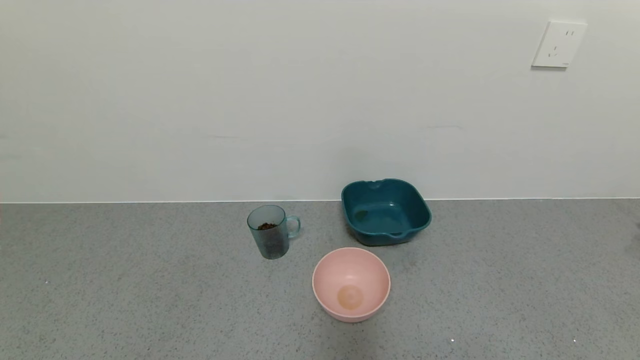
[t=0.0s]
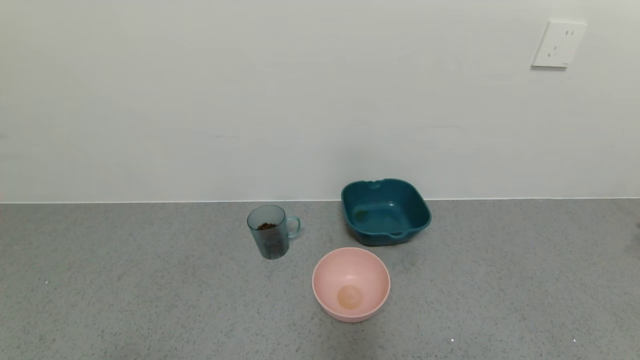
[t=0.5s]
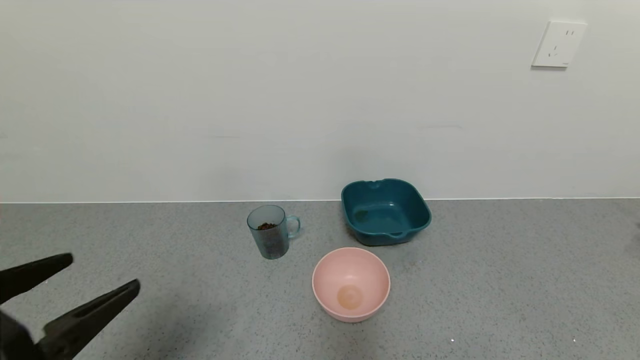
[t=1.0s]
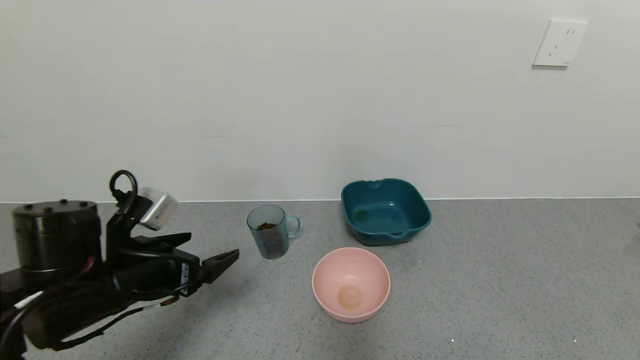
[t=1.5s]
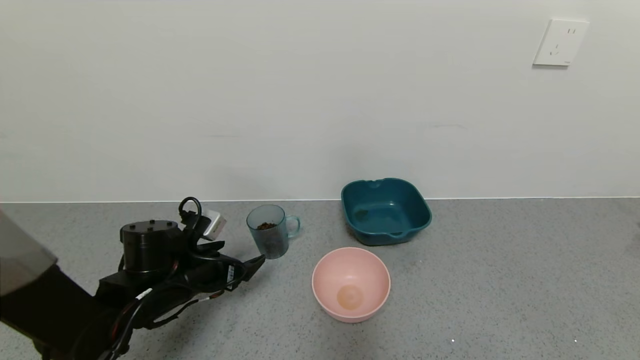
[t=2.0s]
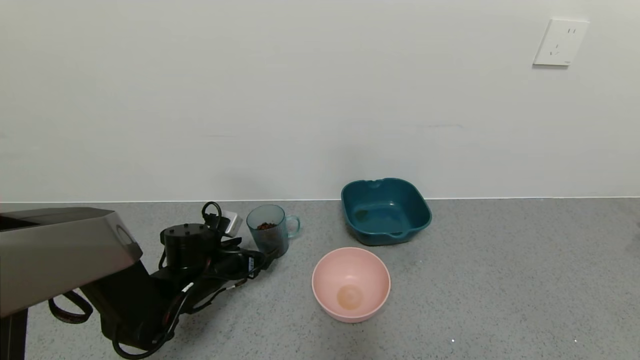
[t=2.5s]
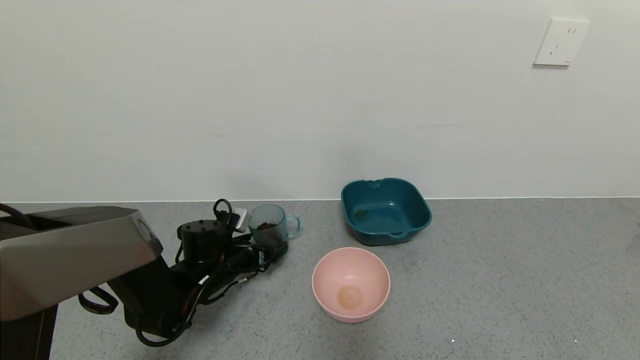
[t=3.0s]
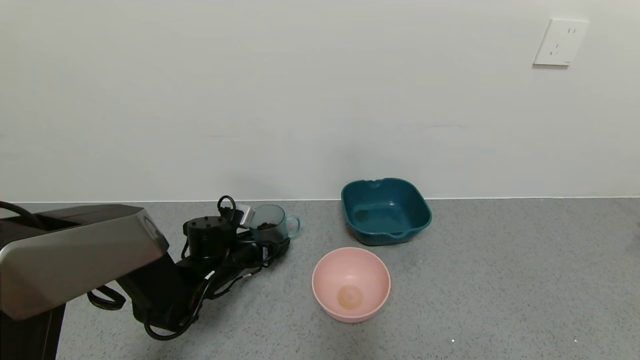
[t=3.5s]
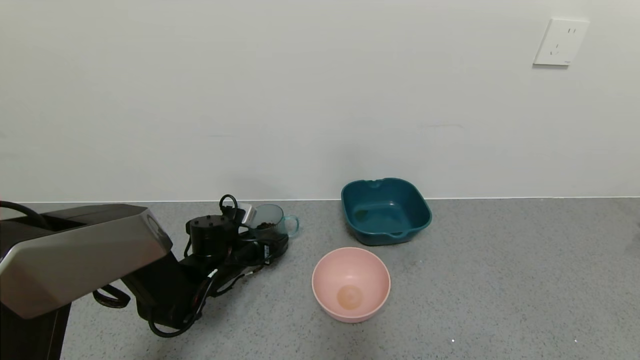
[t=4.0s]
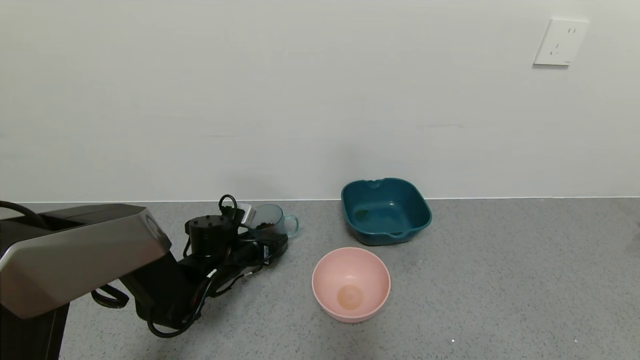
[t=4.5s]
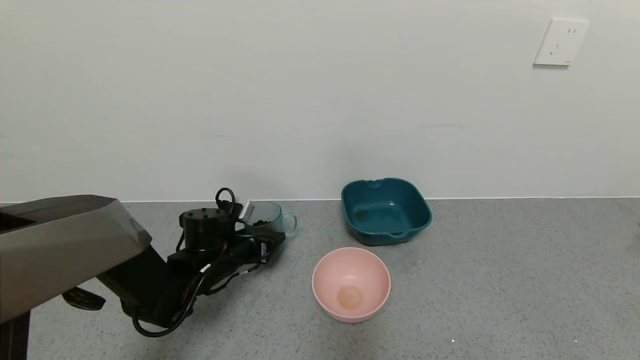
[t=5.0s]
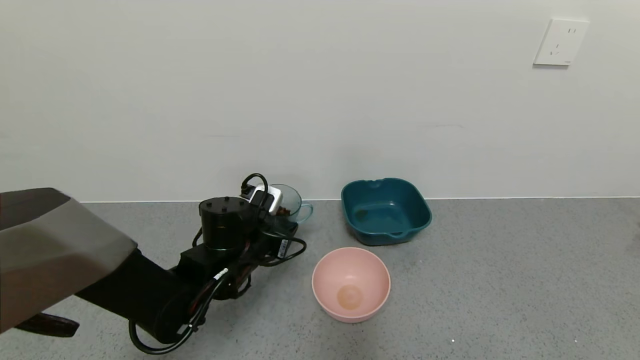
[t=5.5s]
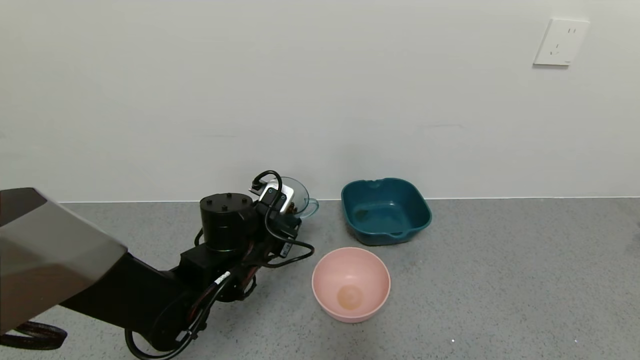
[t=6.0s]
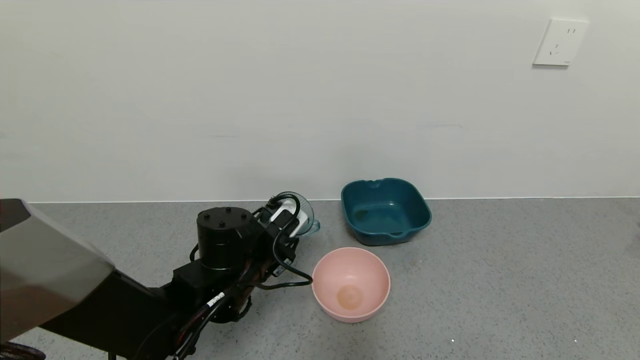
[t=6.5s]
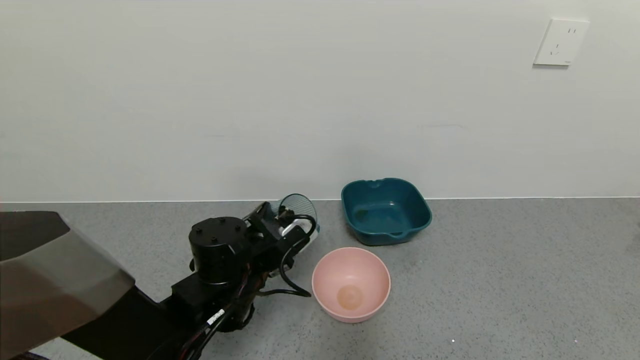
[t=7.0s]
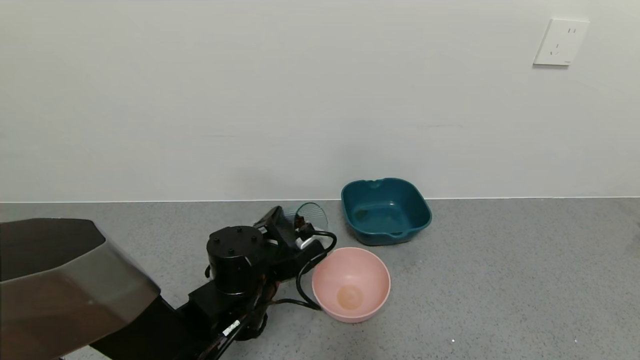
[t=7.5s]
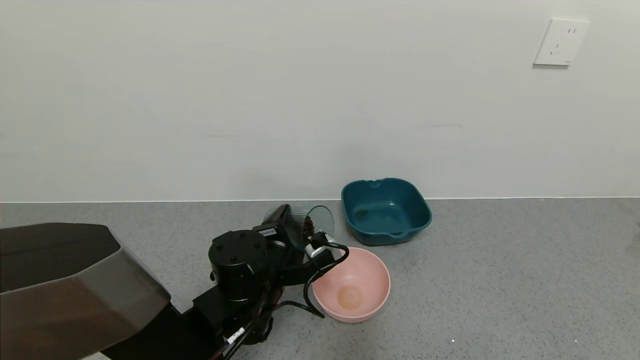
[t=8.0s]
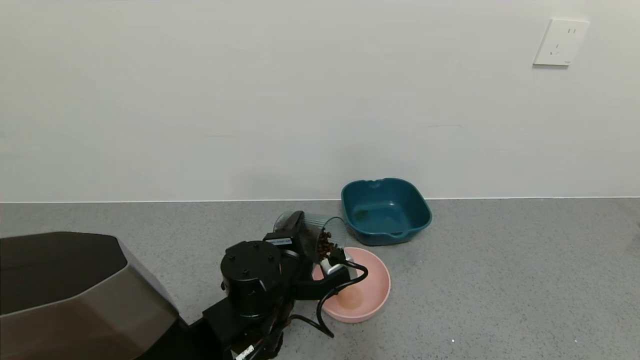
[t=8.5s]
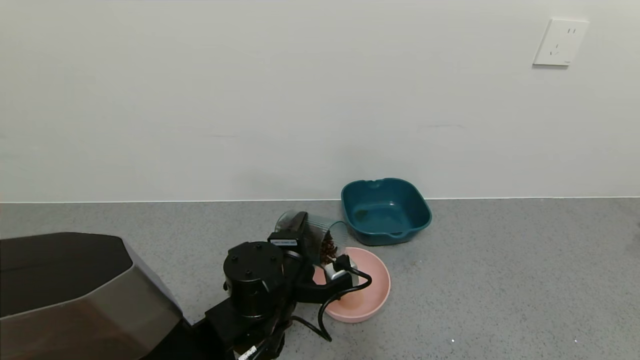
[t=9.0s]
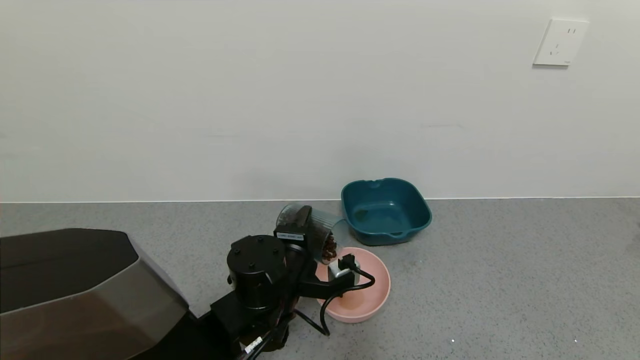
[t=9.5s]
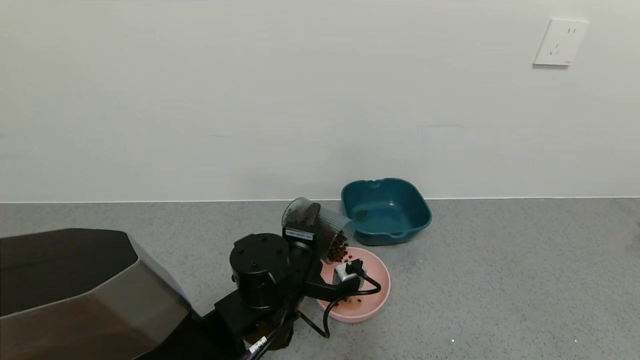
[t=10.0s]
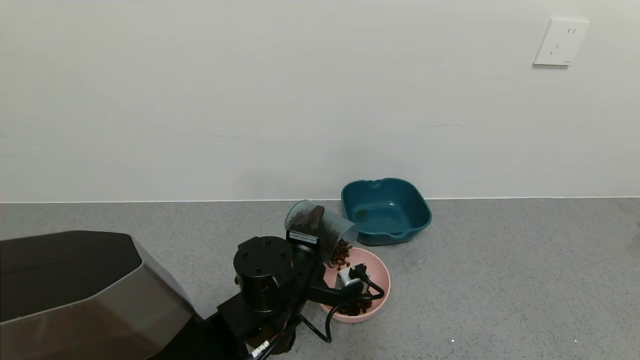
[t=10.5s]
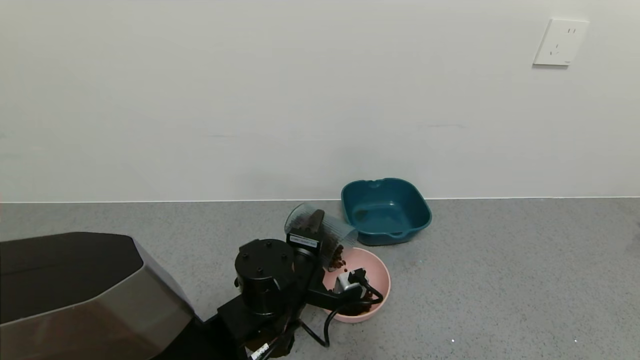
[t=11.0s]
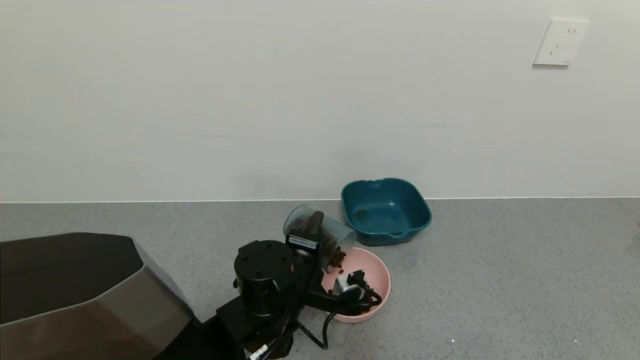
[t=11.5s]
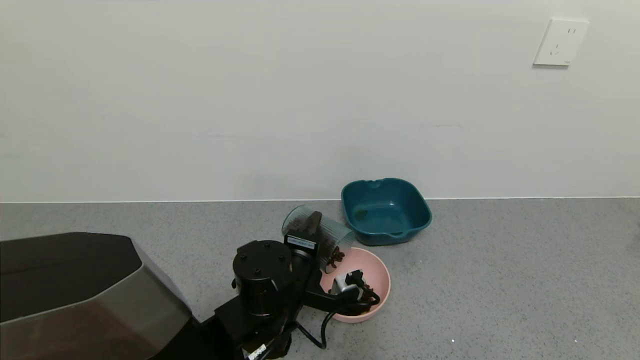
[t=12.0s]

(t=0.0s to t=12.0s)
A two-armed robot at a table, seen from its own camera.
Task of the whole recording: use a gripper to pick up the cup and pour the solid into a bowl or tray.
Step, t=0.0s - t=4.0s: Grasp the glass of coffee beans with the left gripper.
t=0.0s - t=2.0s: The left gripper is displaced forward by roughly 30 cm.
t=2.0s - t=4.0s: The left gripper is displaced forward by some 10 cm, and closes.
t=4.0s - t=6.0s: The left gripper moves upward, to the right and backward, about 15 cm.
t=6.0s - t=8.0s: The left gripper shifts by approximately 5 cm.
t=10.0s - t=12.0s: Both grippers stay put.

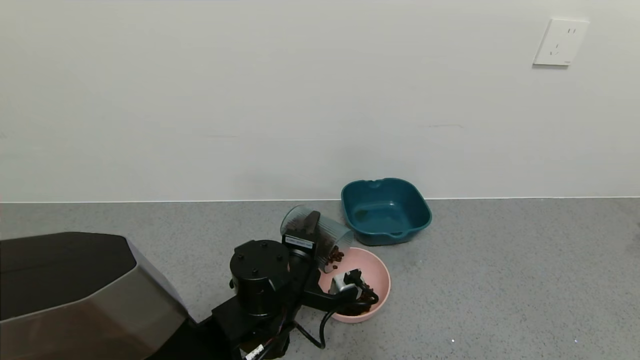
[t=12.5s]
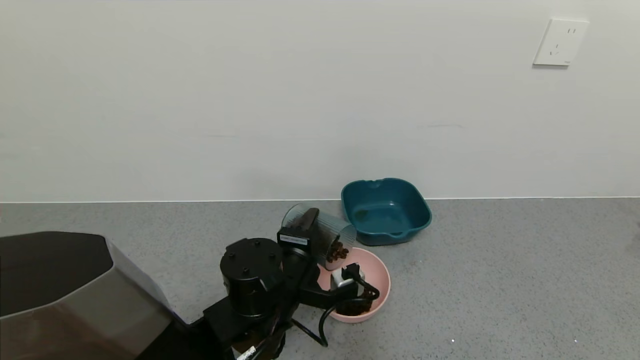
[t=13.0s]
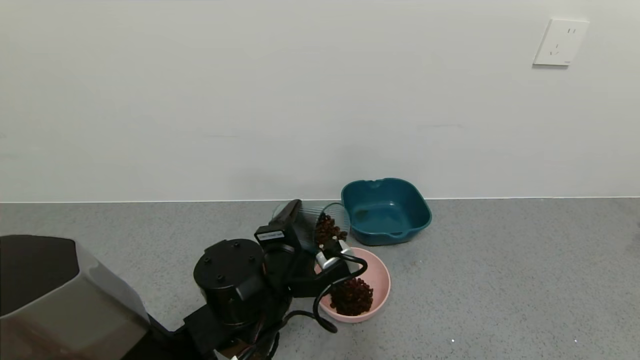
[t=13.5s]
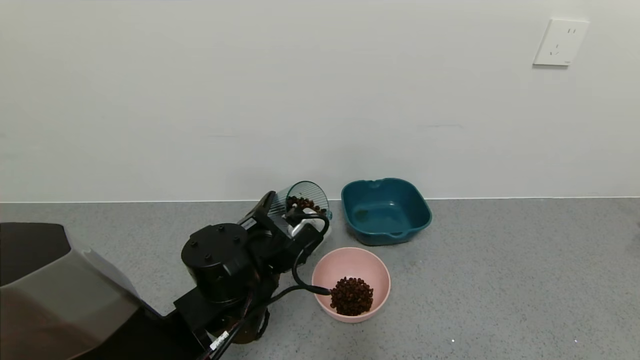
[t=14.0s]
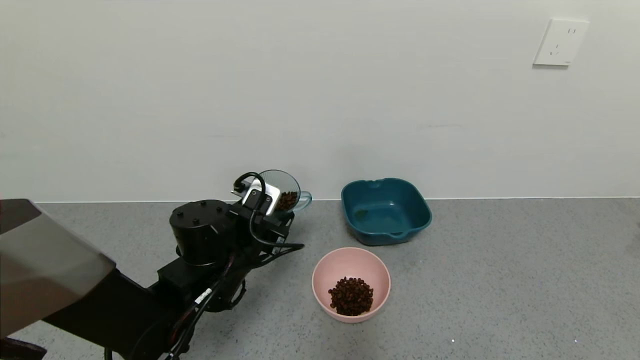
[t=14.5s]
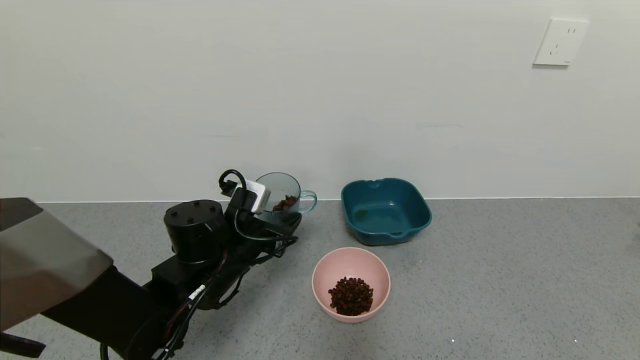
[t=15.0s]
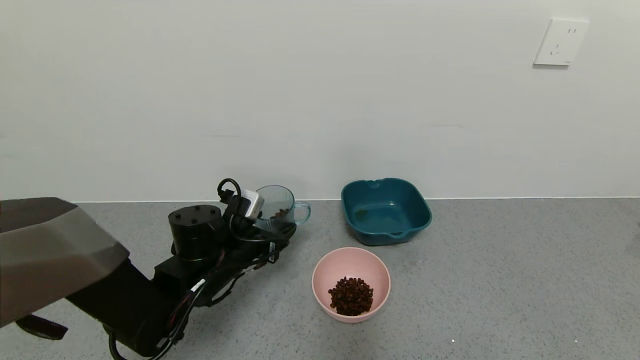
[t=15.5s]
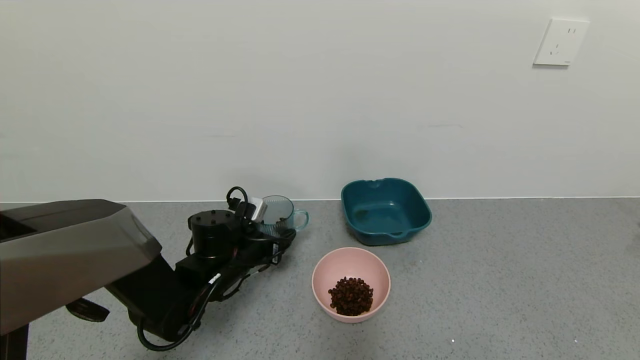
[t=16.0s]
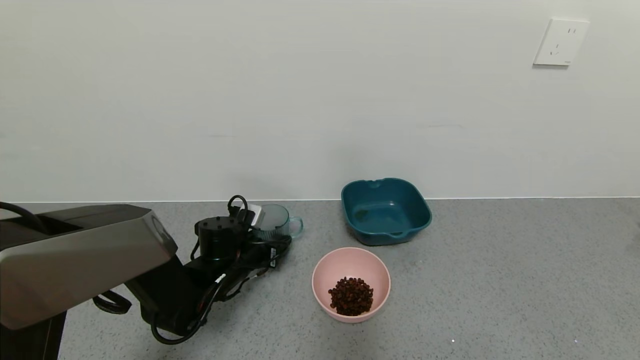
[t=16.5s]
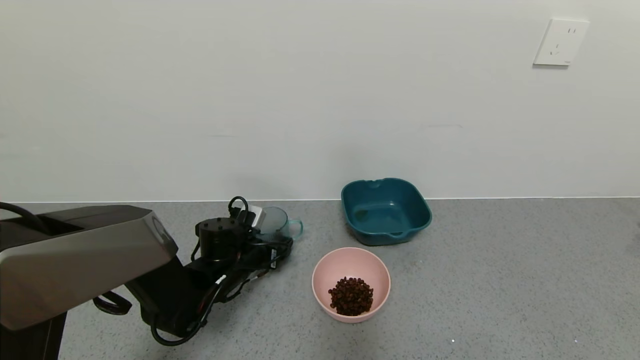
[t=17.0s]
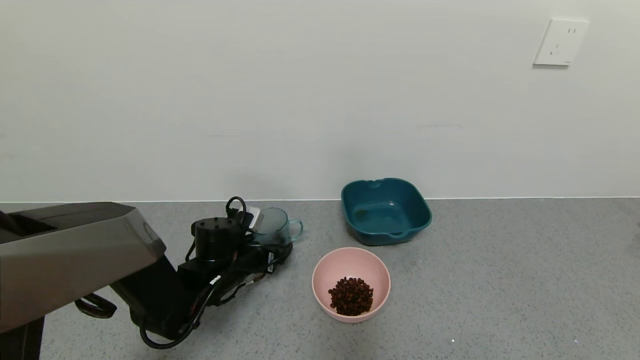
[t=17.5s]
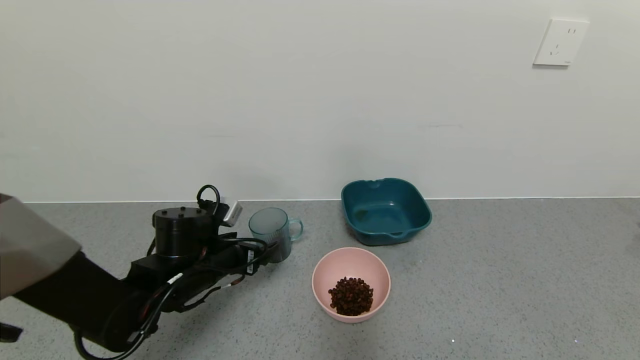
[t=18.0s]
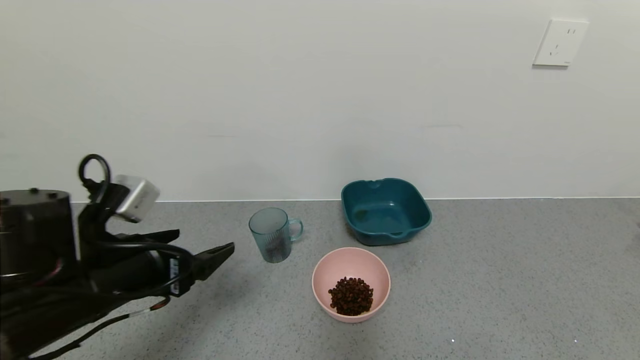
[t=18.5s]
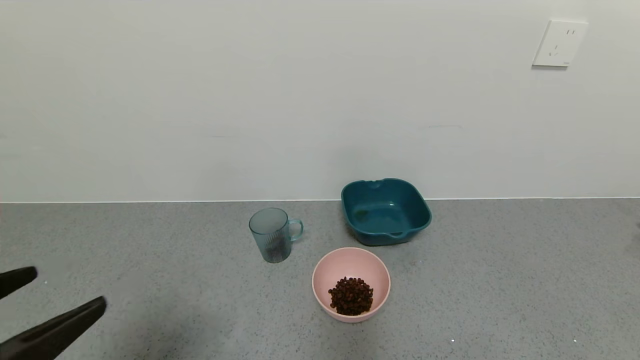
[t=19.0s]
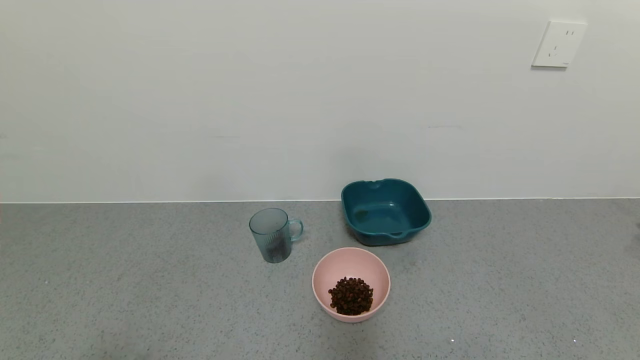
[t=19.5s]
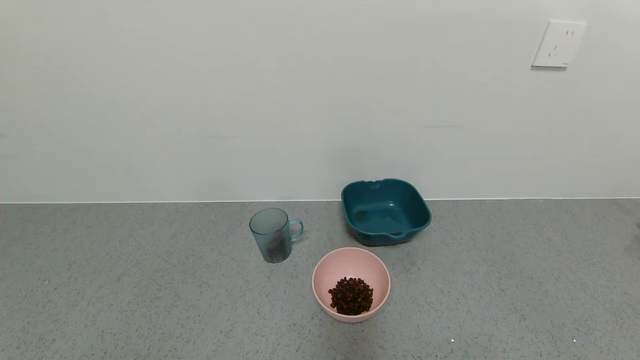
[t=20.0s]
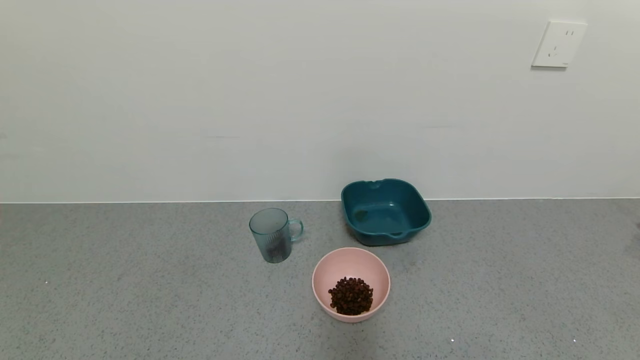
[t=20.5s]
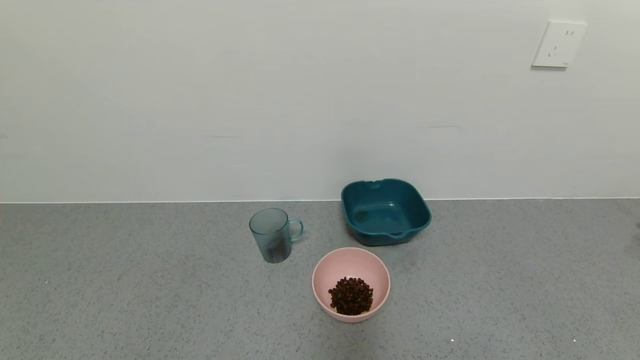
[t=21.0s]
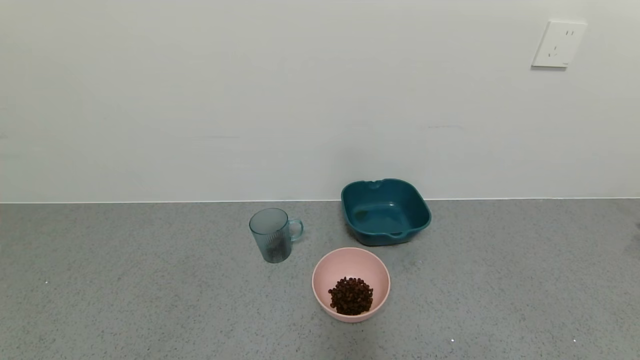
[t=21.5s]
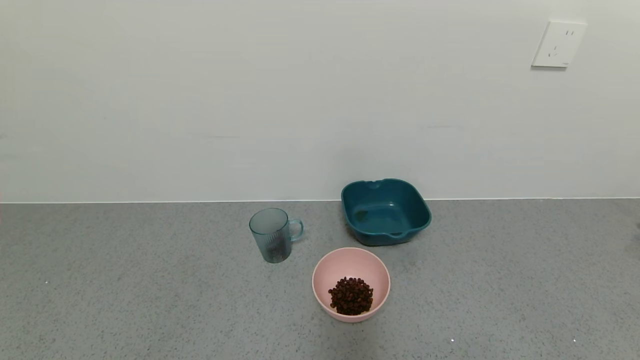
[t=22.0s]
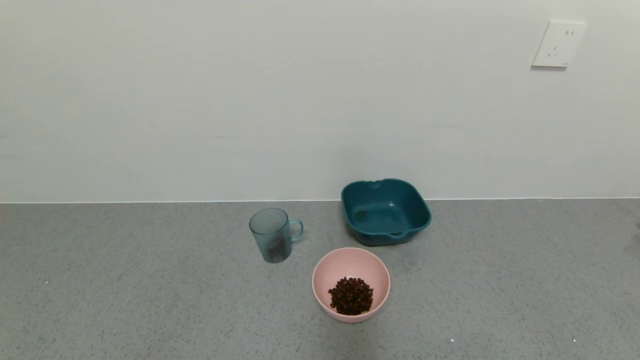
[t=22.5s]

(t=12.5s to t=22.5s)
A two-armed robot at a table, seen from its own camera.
Task of the whole recording: use a gripper to pick up the cup and pour the solid into a bowl or tray.
Step, t=14.0s - t=17.5s: Place the glass cup with the left gripper.
t=12.5s - t=14.5s: The left gripper moves to the left, some 5 cm.
t=14.5s - t=16.5s: The left gripper is displaced downward and forward by roughly 10 cm.
t=16.5s - t=18.5s: The left gripper heads backward and upward, covering approximately 20 cm, and opens its fingers.
t=18.5s - t=20.5s: The left gripper is displaced backward by some 25 cm.
